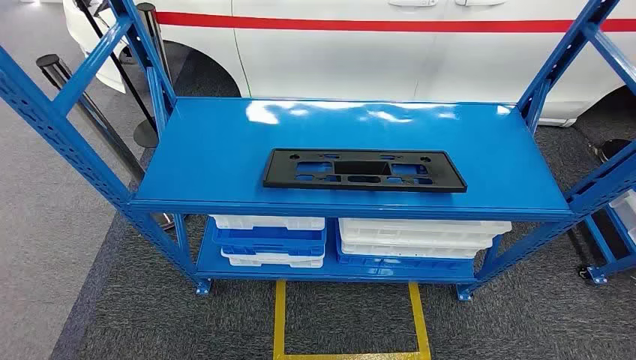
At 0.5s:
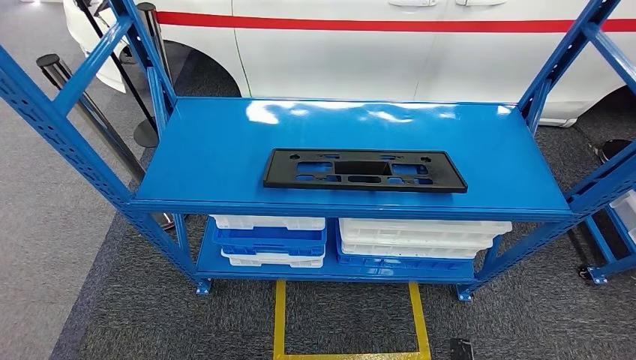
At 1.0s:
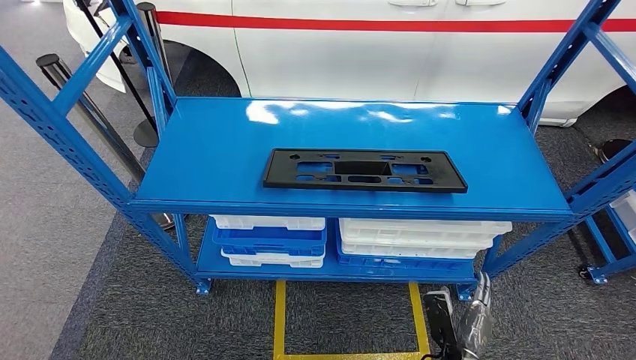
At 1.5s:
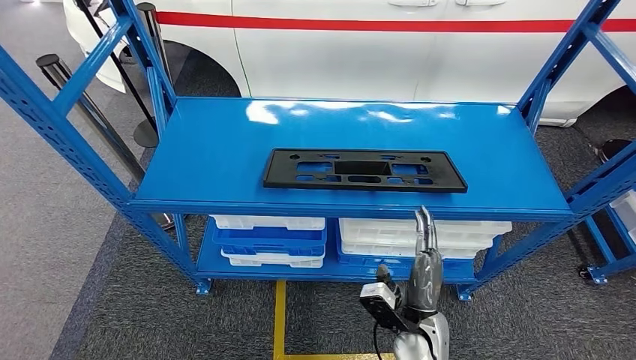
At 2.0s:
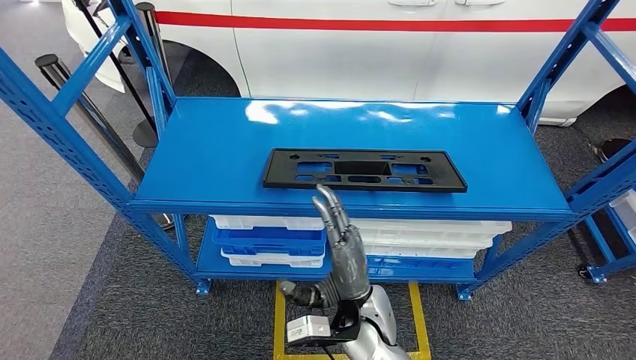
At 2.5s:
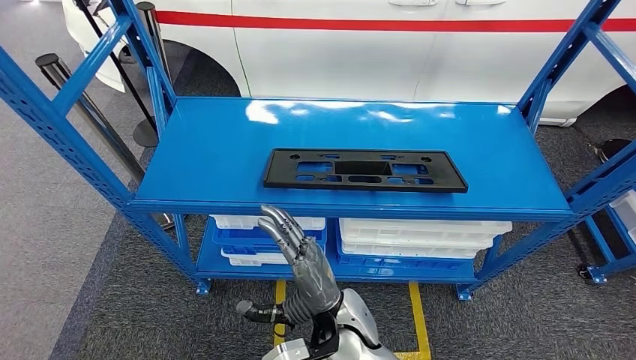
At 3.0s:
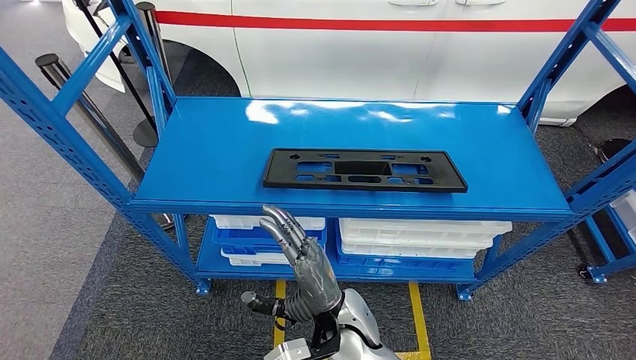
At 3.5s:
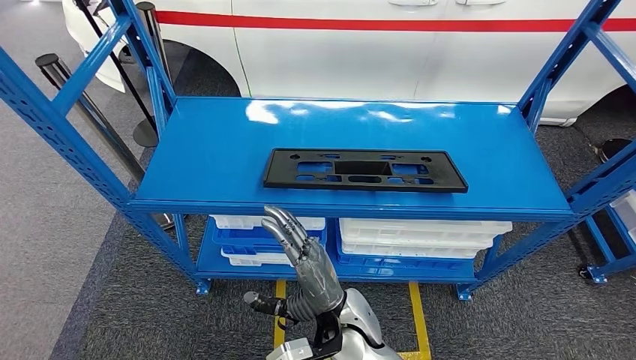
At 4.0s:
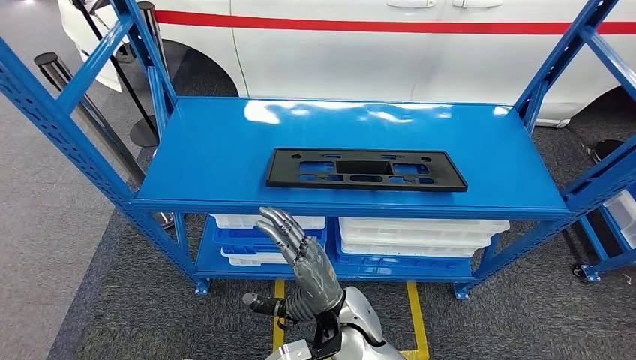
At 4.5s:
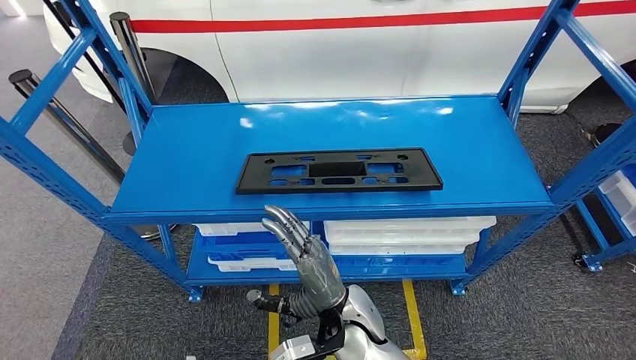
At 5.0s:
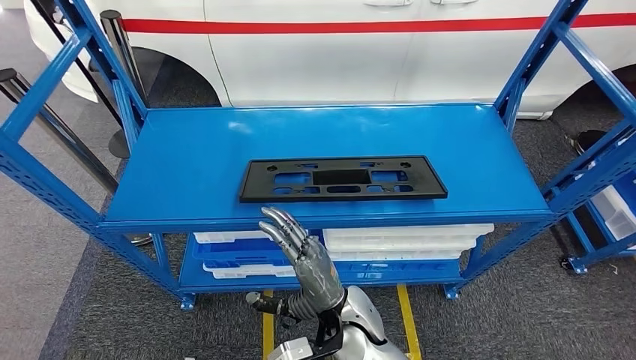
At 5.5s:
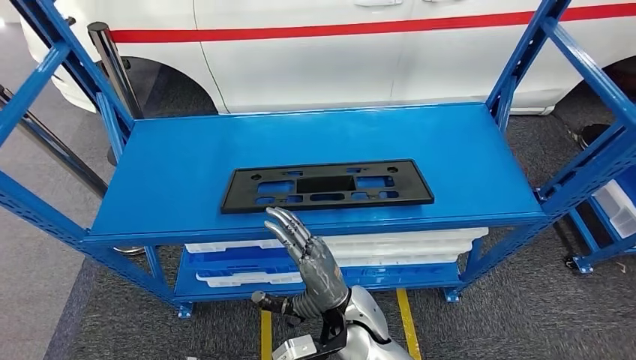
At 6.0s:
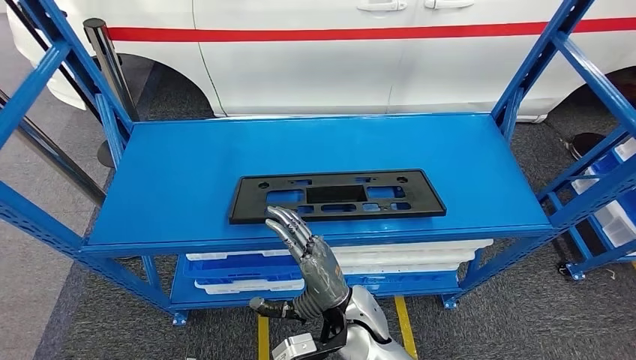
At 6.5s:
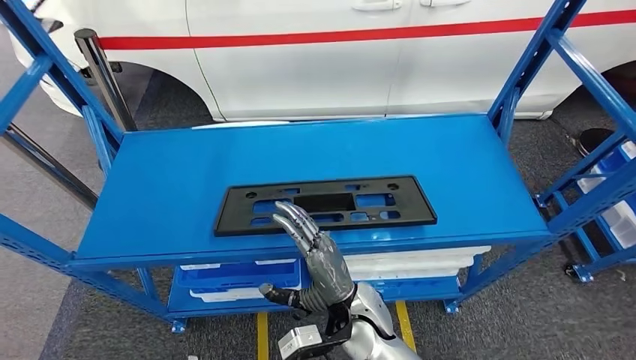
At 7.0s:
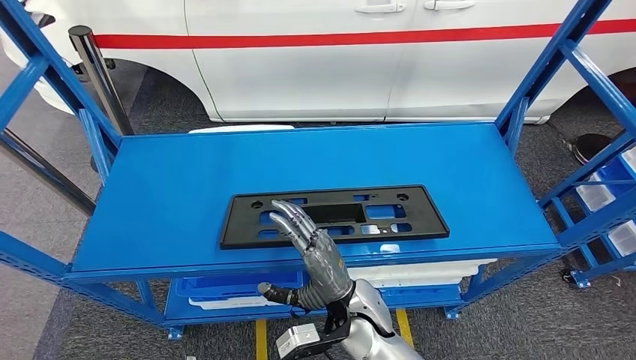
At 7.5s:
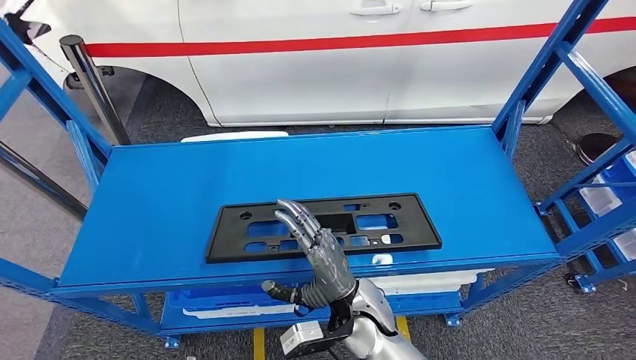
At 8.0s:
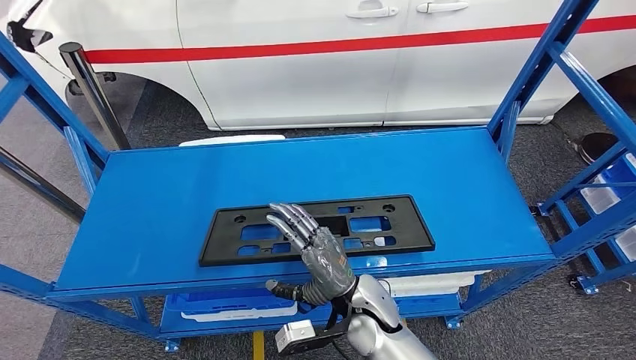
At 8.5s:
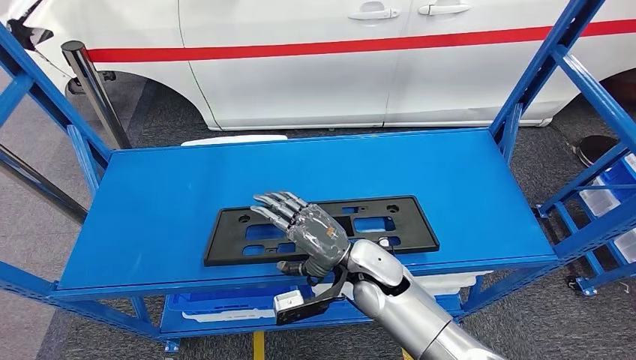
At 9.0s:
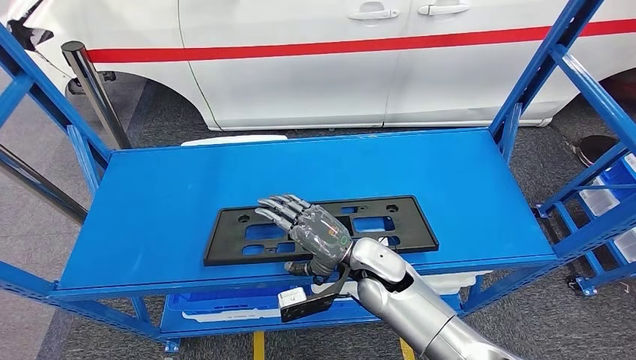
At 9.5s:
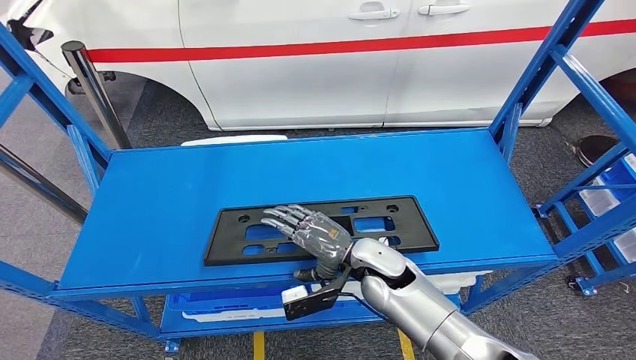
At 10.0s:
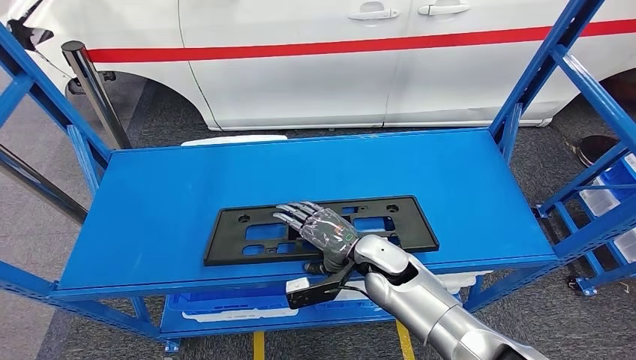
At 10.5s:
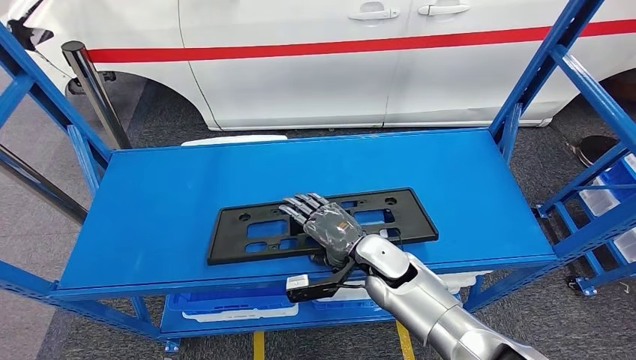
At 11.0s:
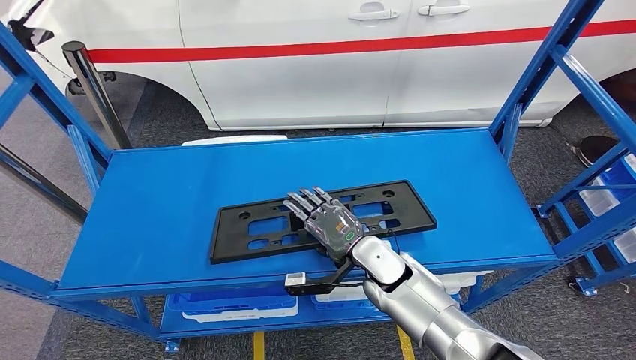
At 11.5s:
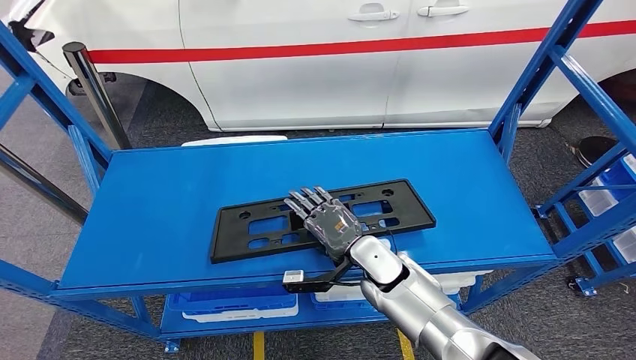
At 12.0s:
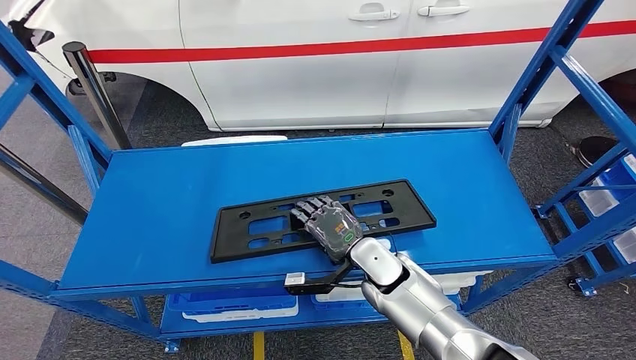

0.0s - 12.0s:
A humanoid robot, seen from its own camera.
2.0s - 4.0s: The left hand shifts by about 5 cm.
8.0s - 10.0s: The right hand heads forward, covering approximately 10 cm.

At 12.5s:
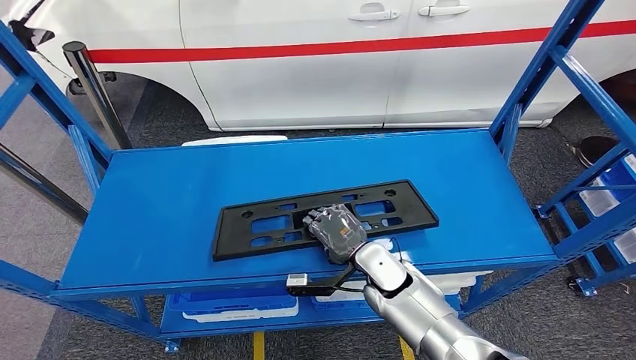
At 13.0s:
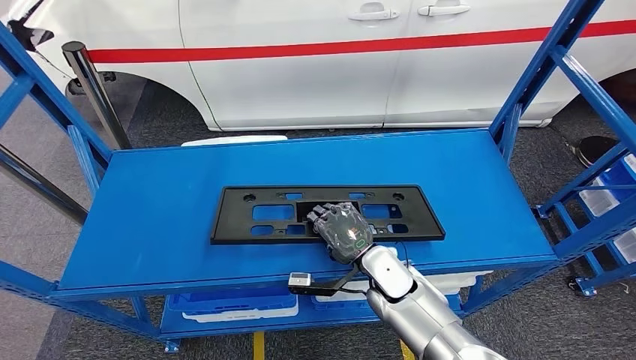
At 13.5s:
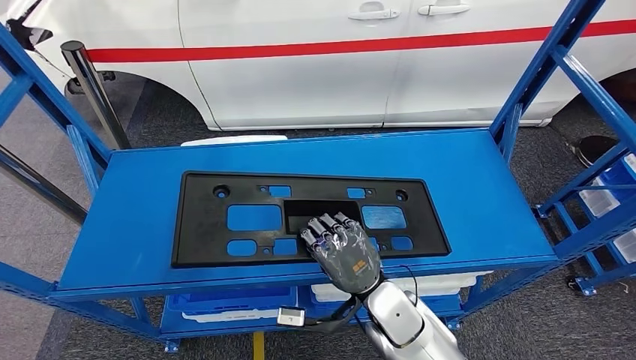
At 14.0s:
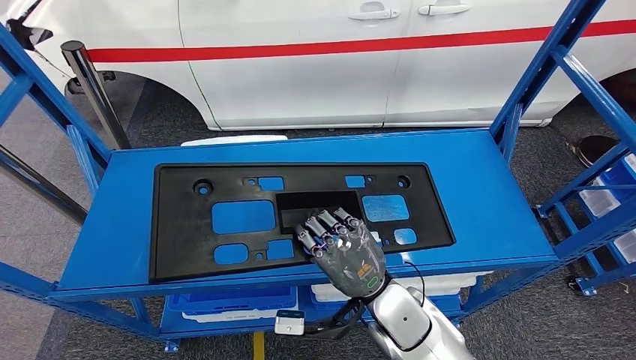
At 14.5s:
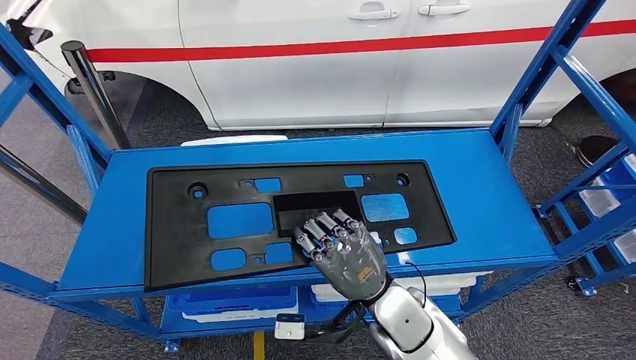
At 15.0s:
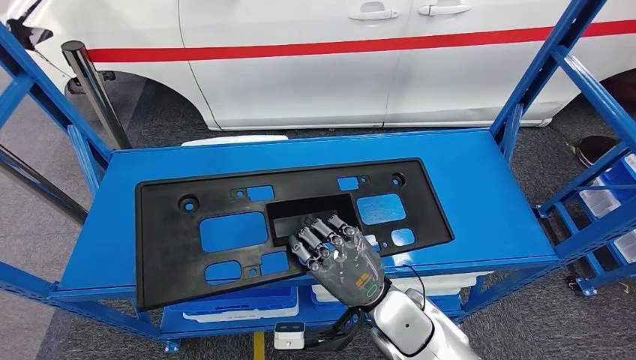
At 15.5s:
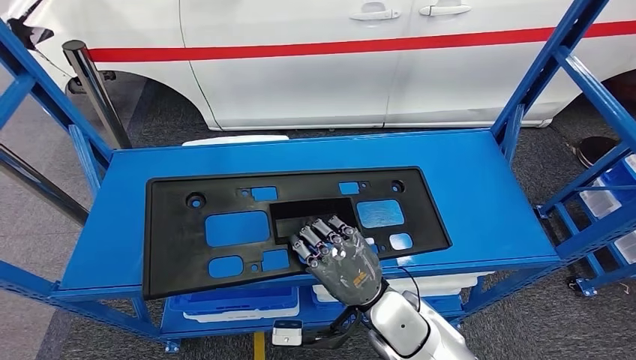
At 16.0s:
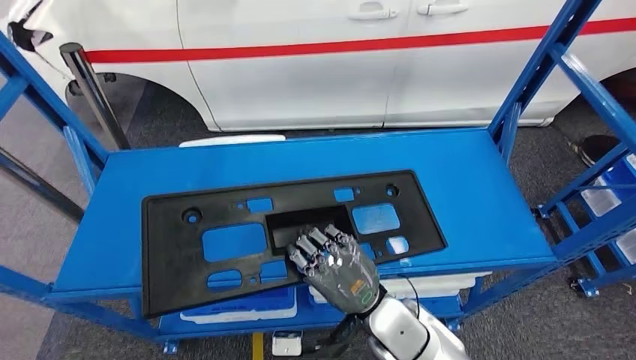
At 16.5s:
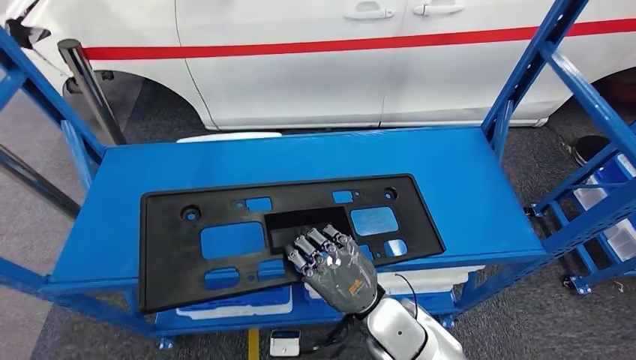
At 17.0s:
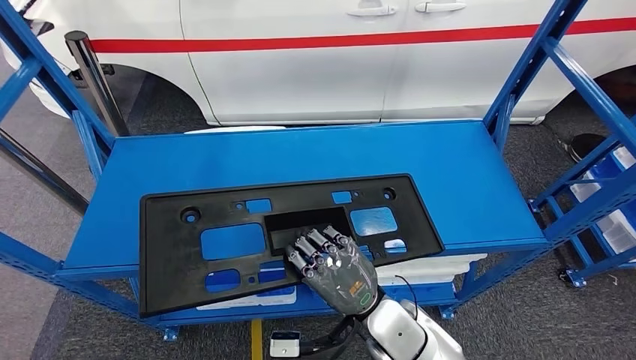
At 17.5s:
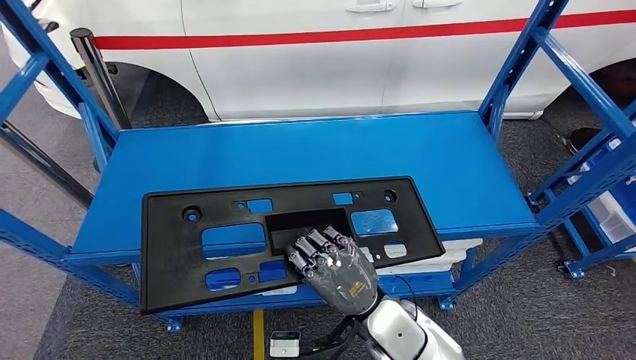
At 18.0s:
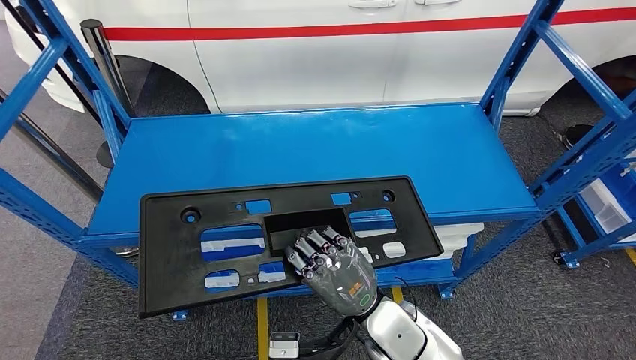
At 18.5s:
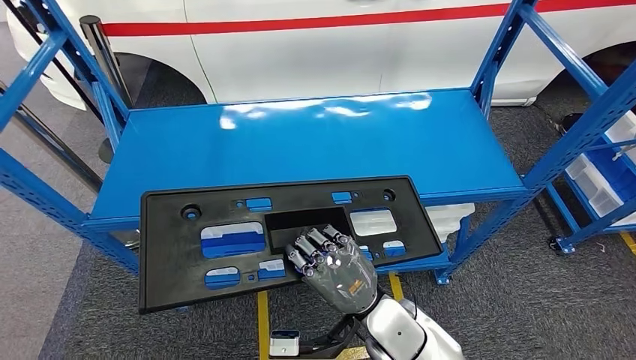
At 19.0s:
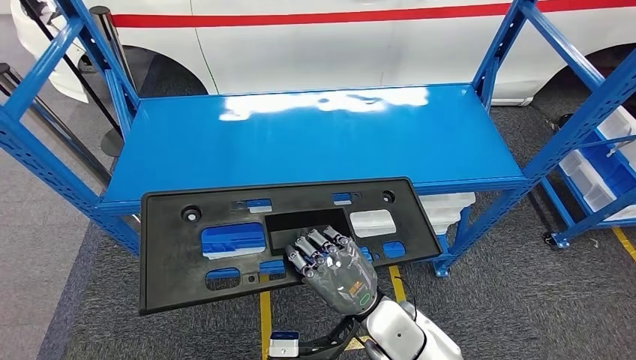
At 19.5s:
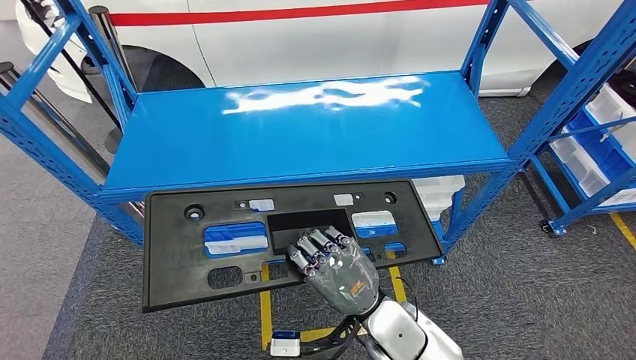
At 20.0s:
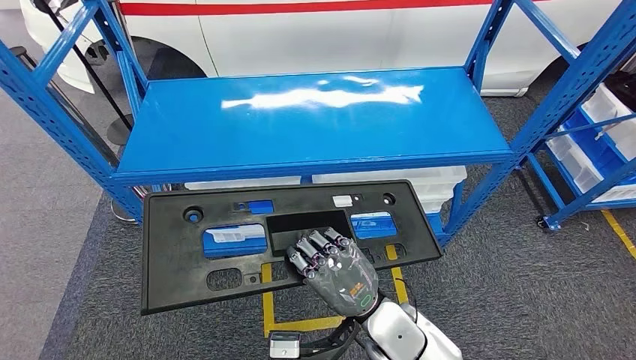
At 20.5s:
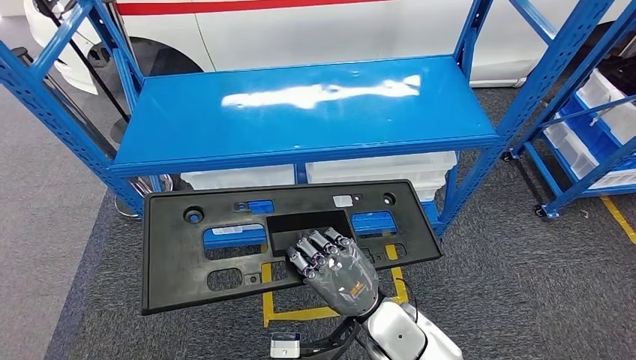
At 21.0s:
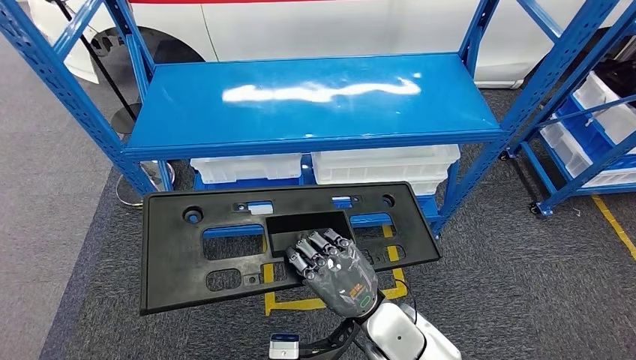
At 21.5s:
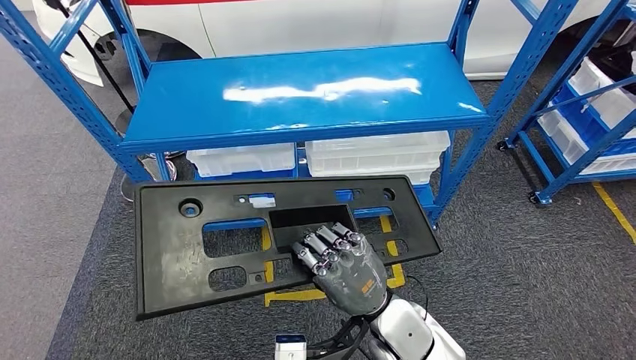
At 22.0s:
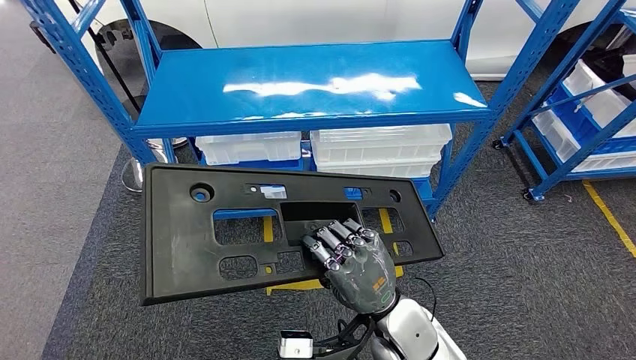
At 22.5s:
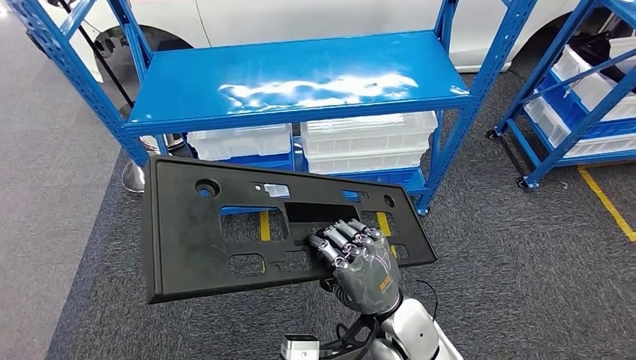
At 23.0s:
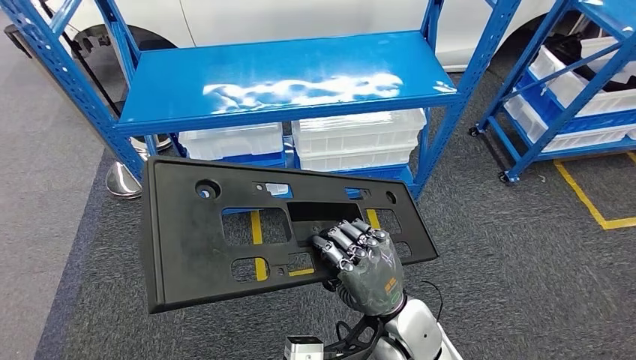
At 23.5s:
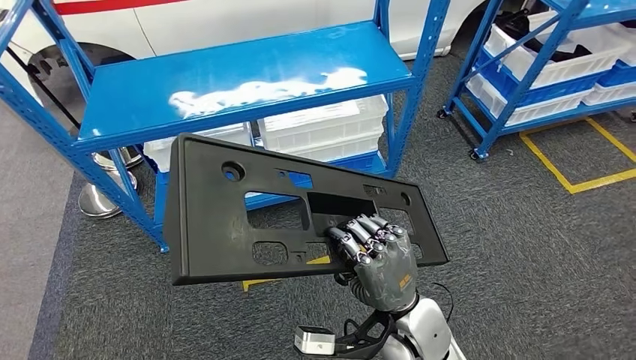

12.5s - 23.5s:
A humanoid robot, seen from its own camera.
Step, 12.5s - 14.5s: Pick up the large material from the shelf.
12.5s - 14.5s: The right hand is displaced backward and upward by approximately 10 cm.
14.5s - 16.0s: There are only small adjustments of the hands.
